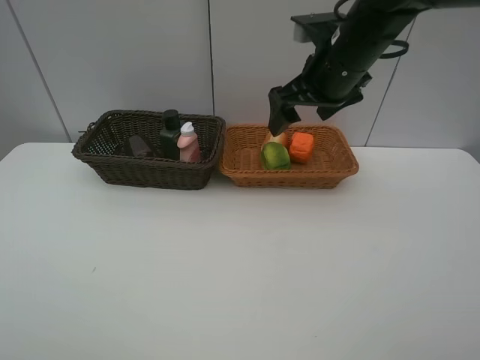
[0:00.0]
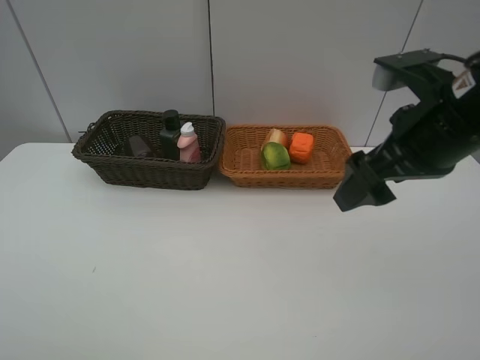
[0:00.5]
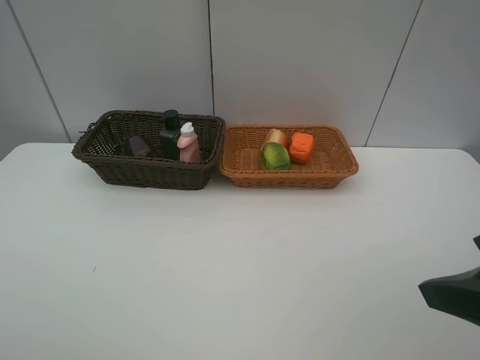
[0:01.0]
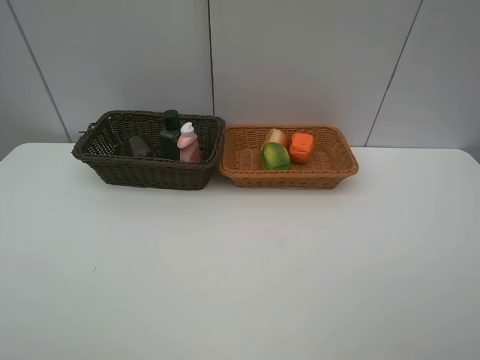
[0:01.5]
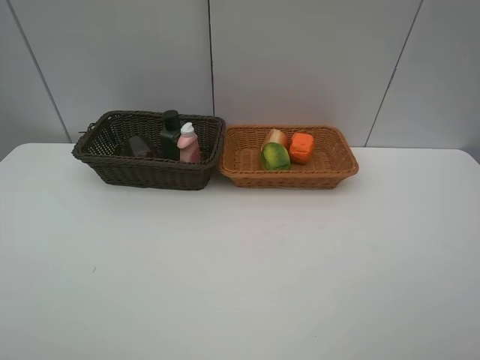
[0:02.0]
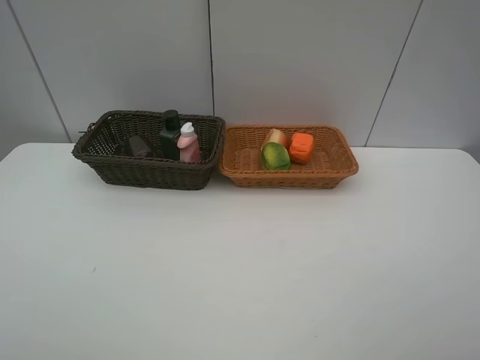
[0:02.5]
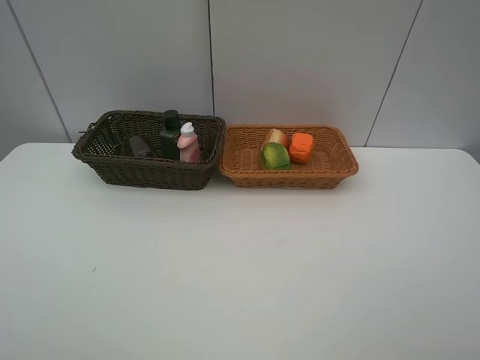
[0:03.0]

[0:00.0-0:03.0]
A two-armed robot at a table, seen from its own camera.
Task of the whole recording: place multiple objects separately in different baskets.
0:00.0 to 0:01.5: The right gripper shifts about 35 cm backward and to the right.

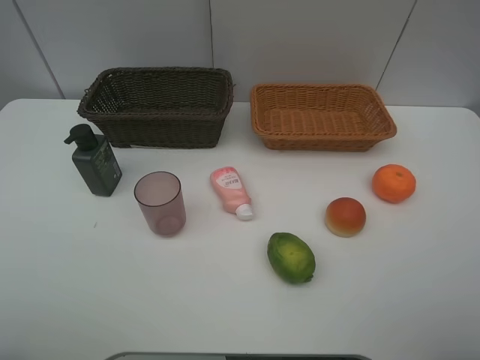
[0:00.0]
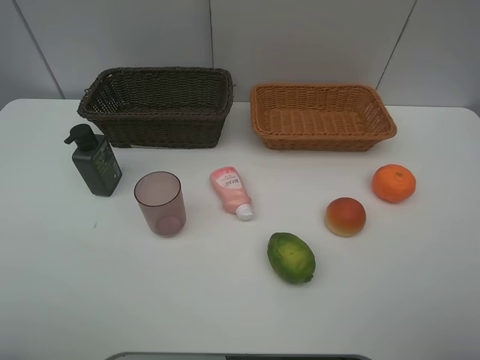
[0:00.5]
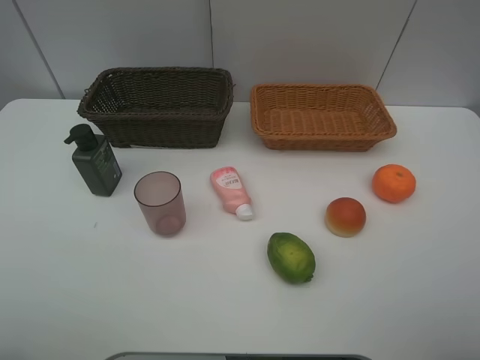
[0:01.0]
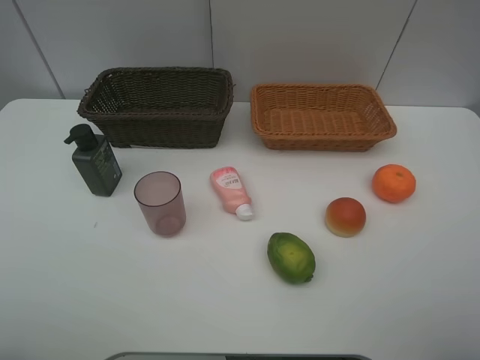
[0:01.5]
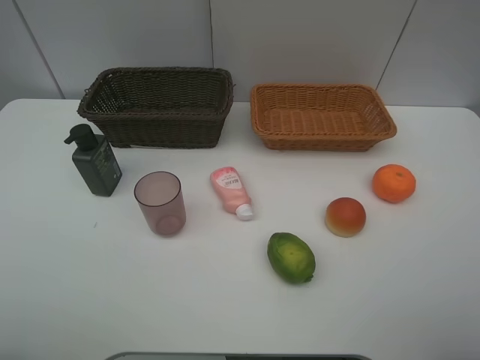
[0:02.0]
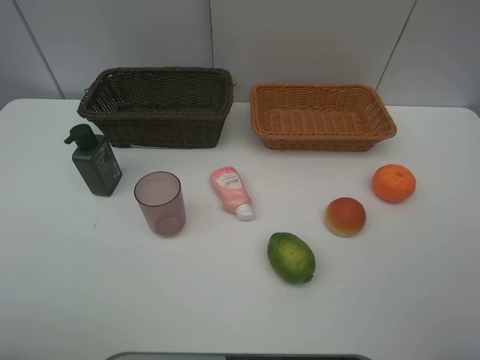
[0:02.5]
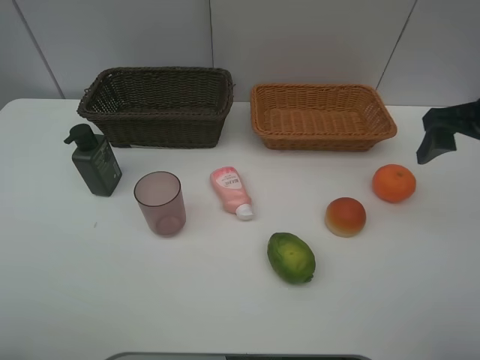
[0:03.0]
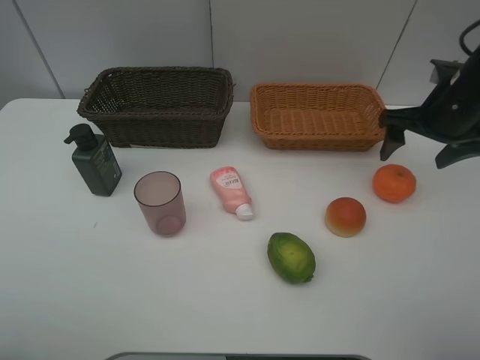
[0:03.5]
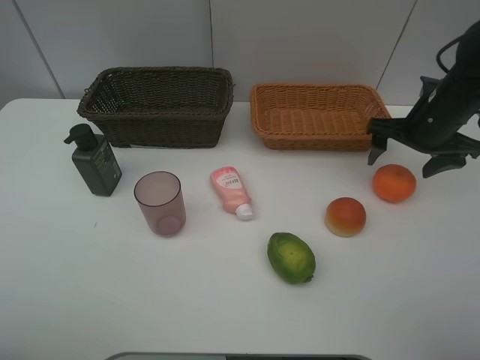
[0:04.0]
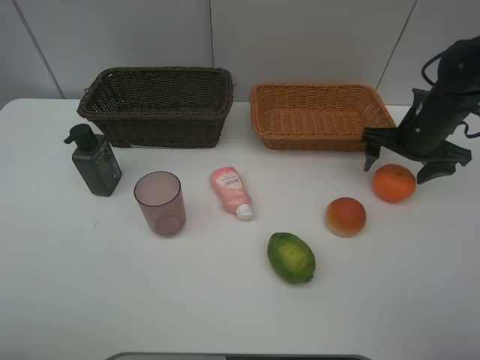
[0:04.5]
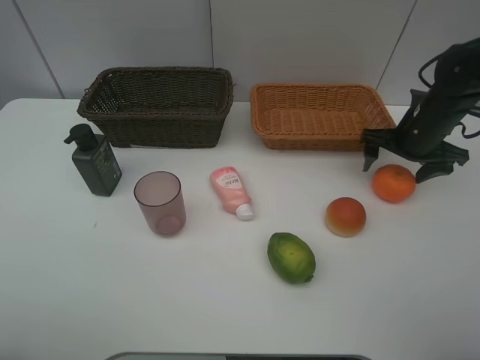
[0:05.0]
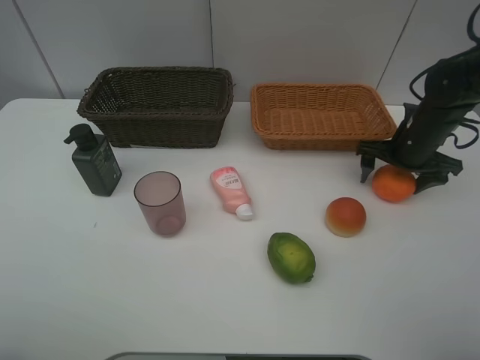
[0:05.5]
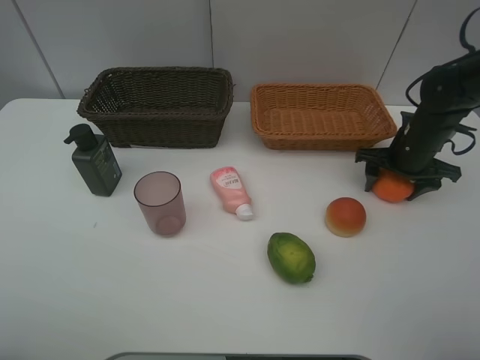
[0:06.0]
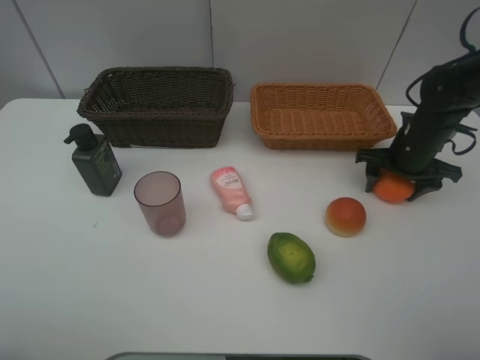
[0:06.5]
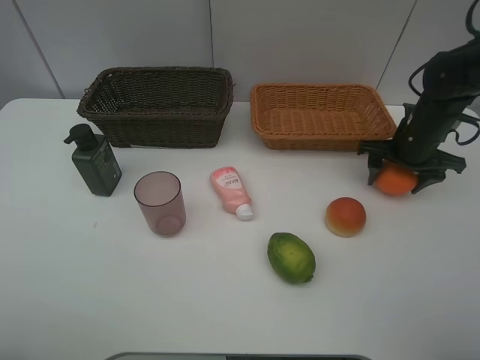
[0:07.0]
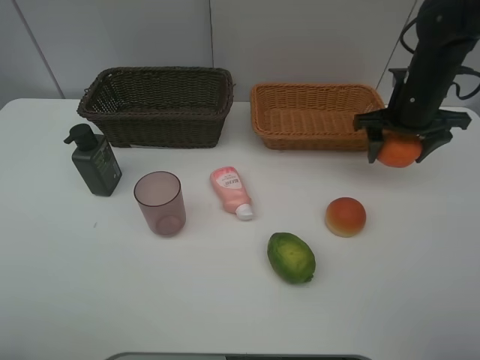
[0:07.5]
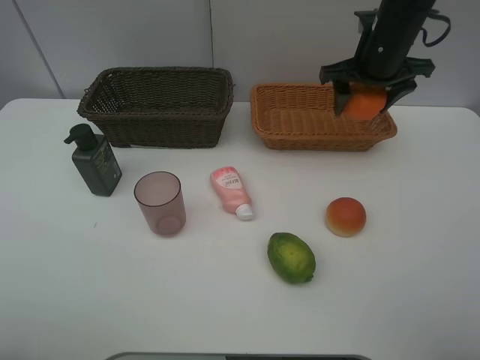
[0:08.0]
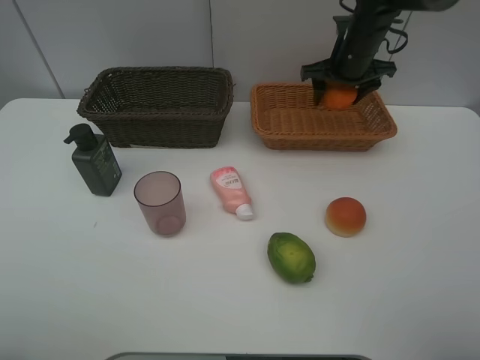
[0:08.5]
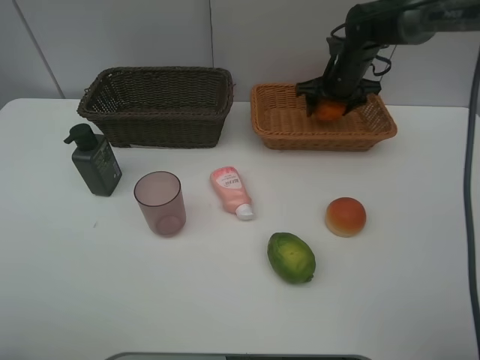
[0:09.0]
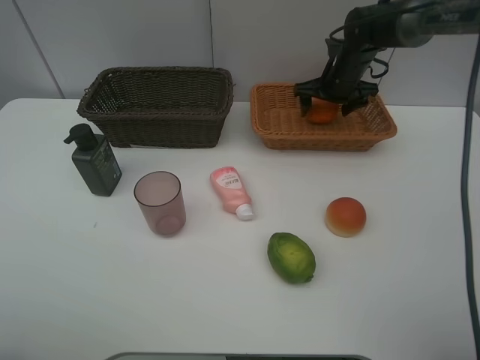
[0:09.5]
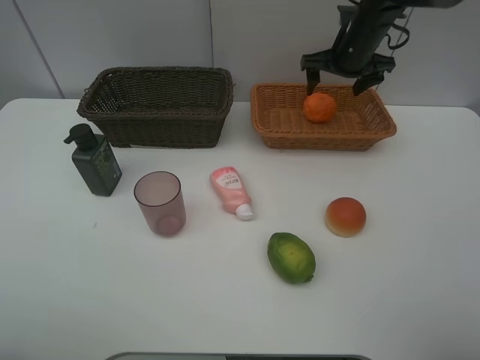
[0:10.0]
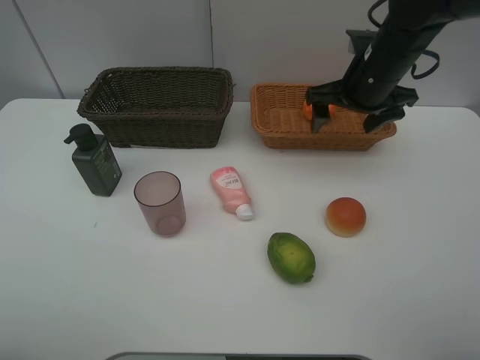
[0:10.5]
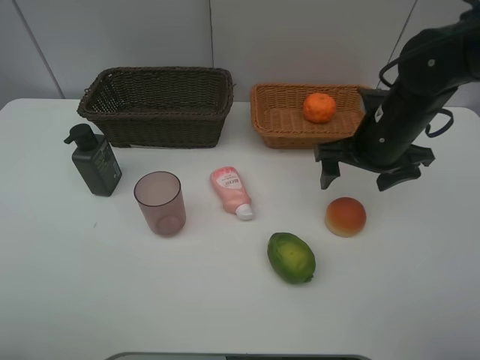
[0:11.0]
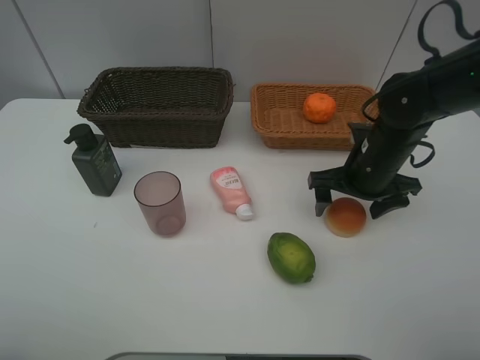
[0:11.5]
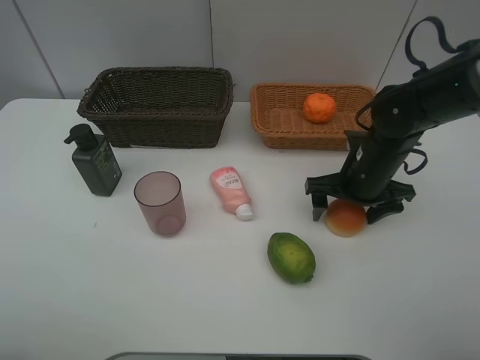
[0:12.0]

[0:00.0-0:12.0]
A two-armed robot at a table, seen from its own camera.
Task of the whole recording: place multiple objects separately in different baskets.
0:00.0 to 0:02.0: Neither gripper changes place.
0:02.0 to 0:04.0: The right gripper heads forward, covering approximately 35 cm.
0:04.0 to 0:06.0: The right gripper shifts roughly 5 cm downward, and closes up.
0:06.0 to 0:08.0: The right gripper heads upward, to the left and forward, covering some 15 cm.
0:08.0 to 0:10.0: The right gripper is displaced forward by about 5 cm, travels downward and back again, about 10 cm each way, and opens its fingers.
0:10.0 to 0:12.0: The right gripper shifts some 20 cm backward and downward.

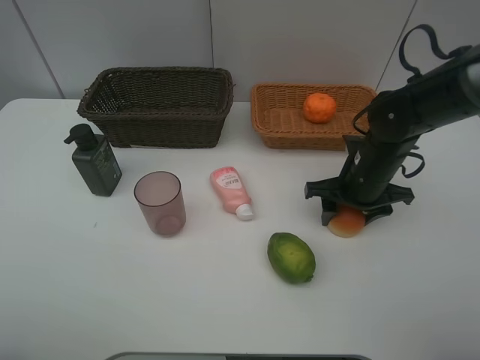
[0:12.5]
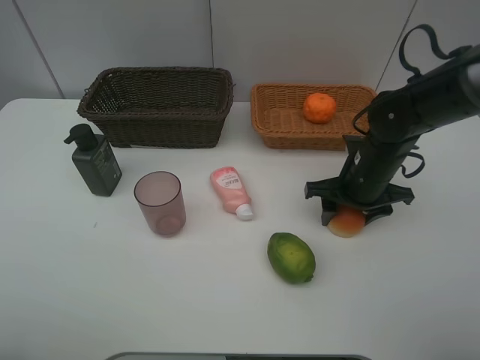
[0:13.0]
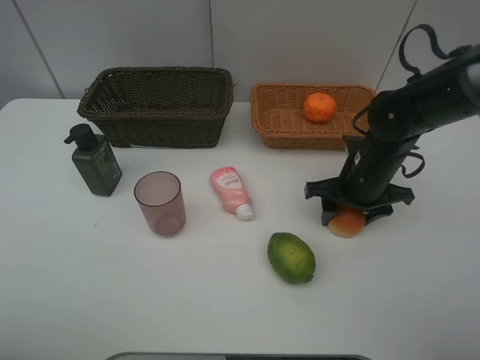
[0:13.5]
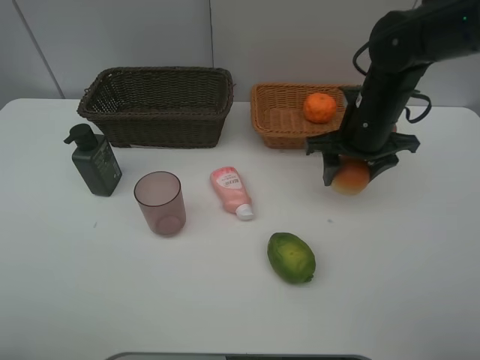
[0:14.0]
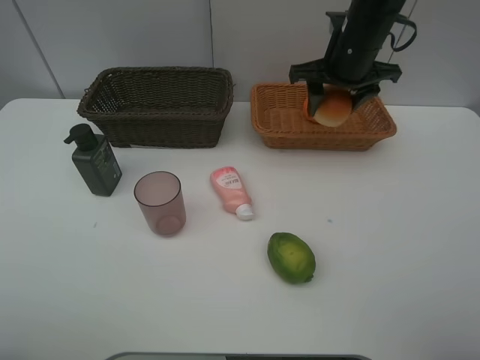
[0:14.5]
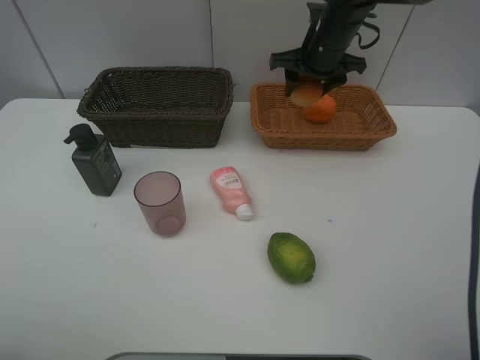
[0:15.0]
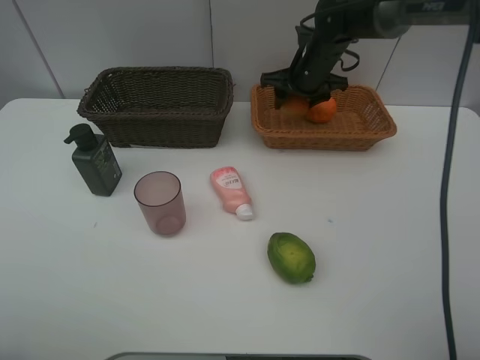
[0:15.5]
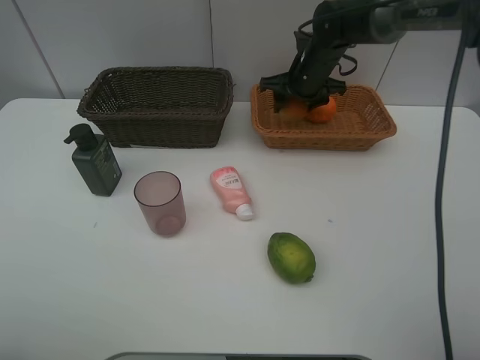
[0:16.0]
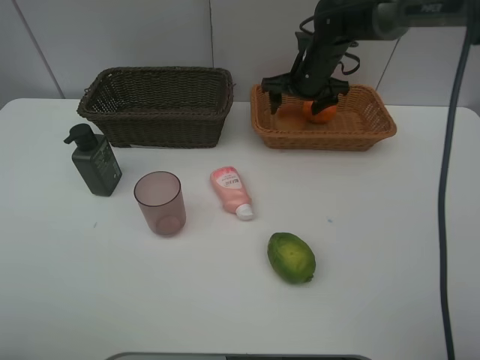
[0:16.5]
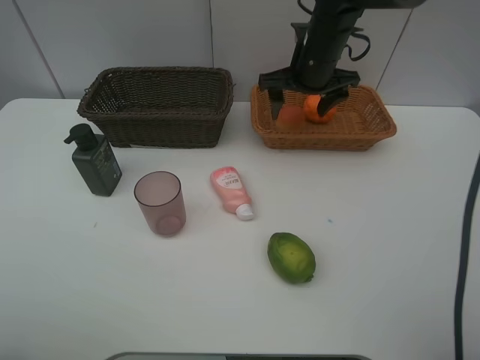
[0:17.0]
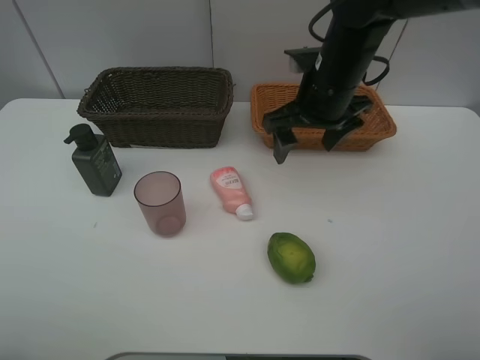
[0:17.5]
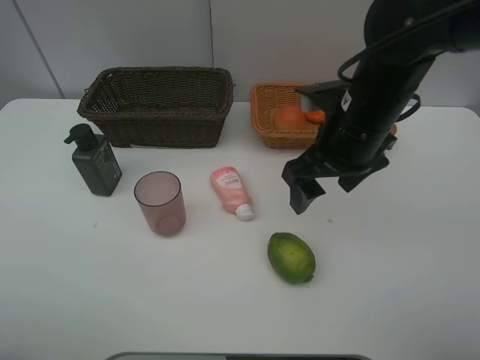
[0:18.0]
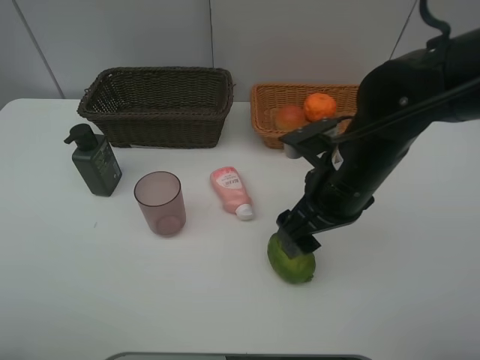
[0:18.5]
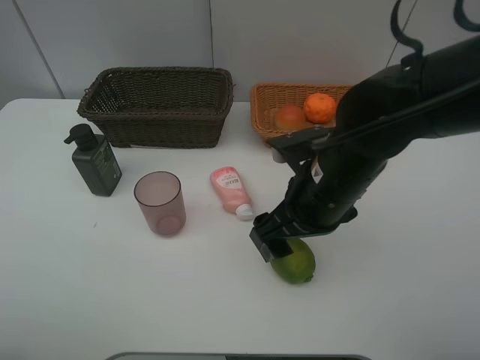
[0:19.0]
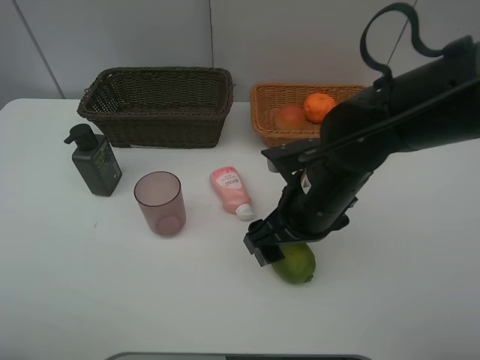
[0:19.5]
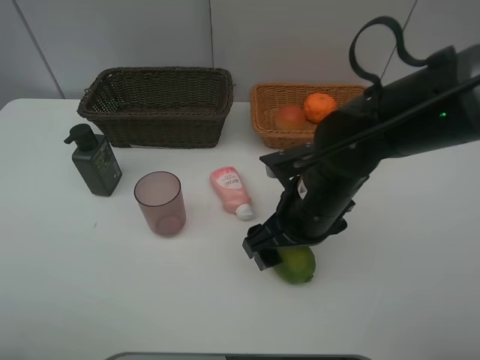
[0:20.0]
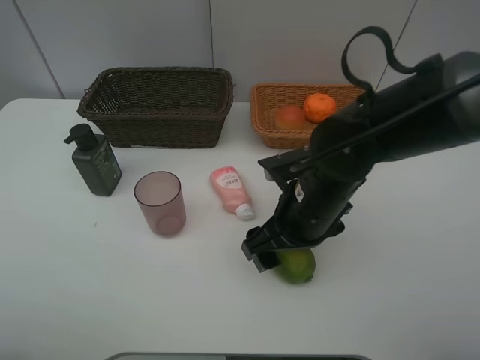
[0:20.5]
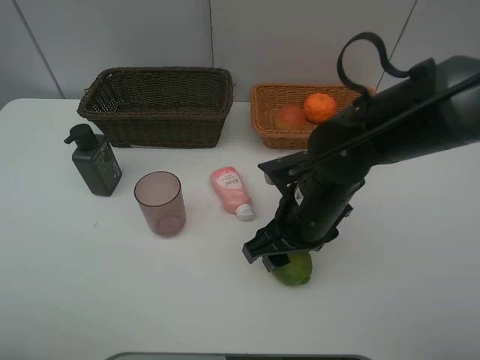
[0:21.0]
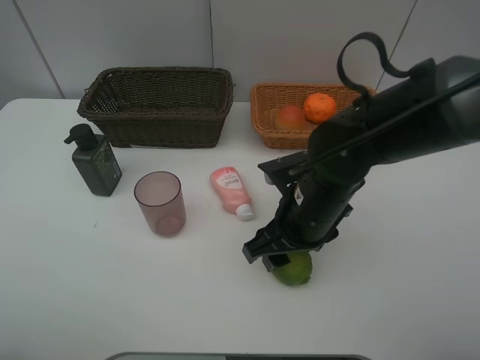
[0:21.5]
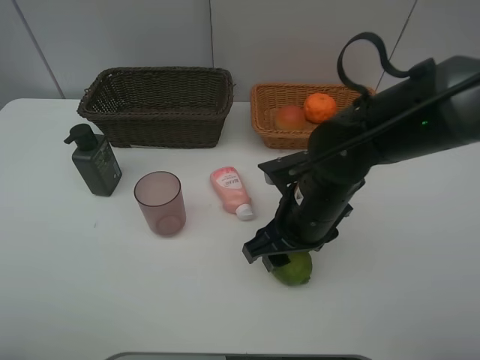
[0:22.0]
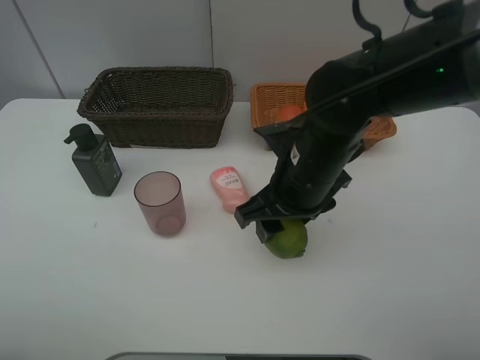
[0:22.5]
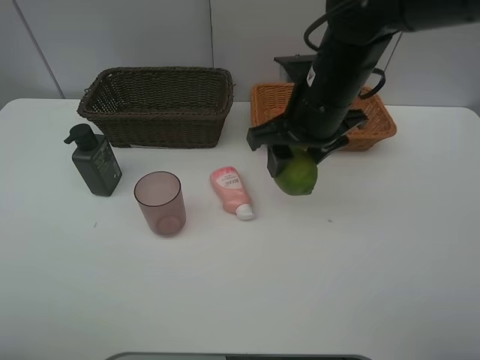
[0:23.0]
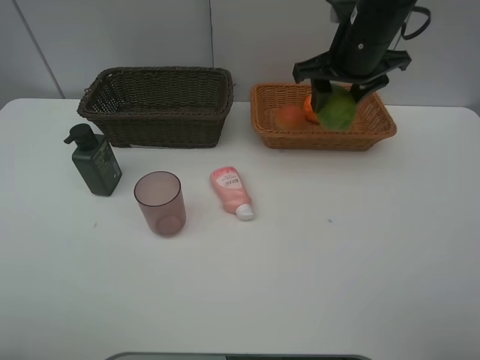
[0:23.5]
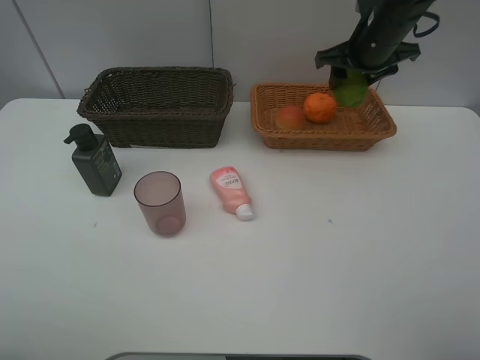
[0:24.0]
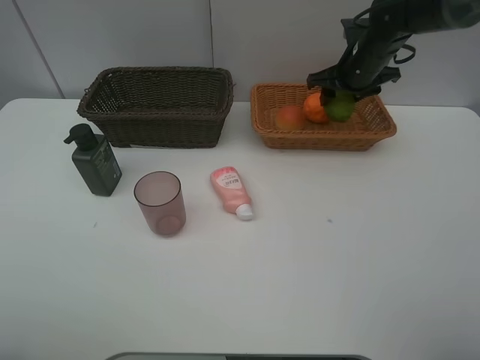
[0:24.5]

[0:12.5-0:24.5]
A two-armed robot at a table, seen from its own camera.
Task of the whole recording: place multiple objects separately in different baskets.
0:12.5 to 0:14.5: The right gripper shifts about 20 cm upward and forward.
0:14.5 to 0:16.5: The right gripper is displaced downward and forward by roughly 10 cm, and opens.
0:16.5 to 0:18.5: The right gripper shifts approximately 25 cm backward.
0:18.5 to 0:20.5: The right gripper changes place by roughly 5 cm.
0:20.5 to 0:22.5: The right gripper closes up.
0:22.5 to 0:24.5: The right gripper goes about 25 cm forward and to the right.
